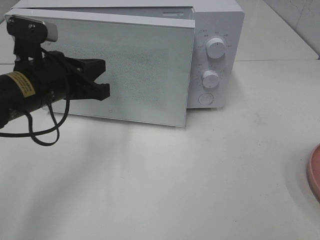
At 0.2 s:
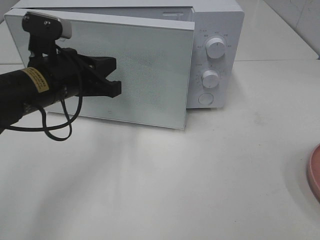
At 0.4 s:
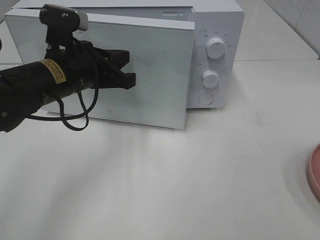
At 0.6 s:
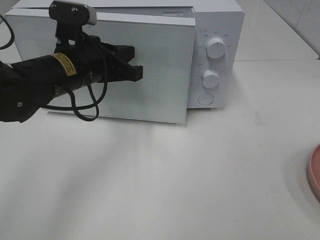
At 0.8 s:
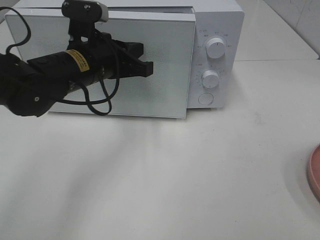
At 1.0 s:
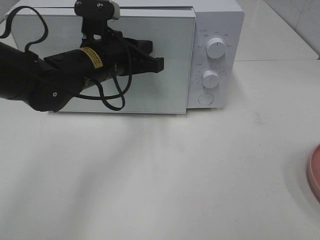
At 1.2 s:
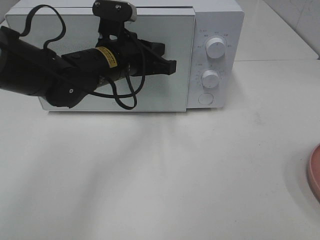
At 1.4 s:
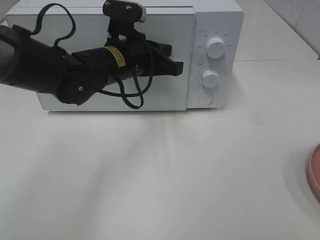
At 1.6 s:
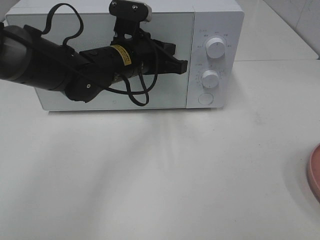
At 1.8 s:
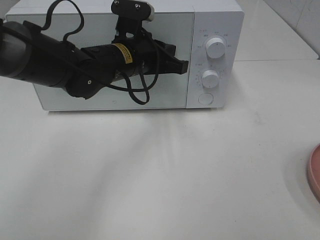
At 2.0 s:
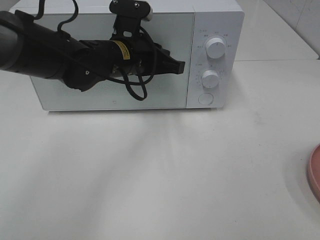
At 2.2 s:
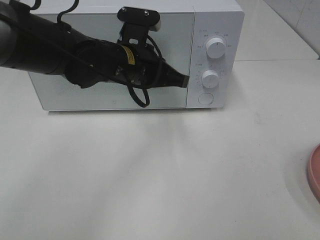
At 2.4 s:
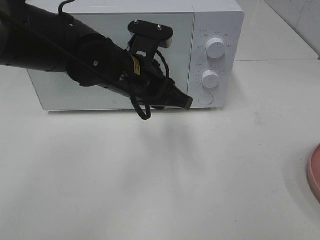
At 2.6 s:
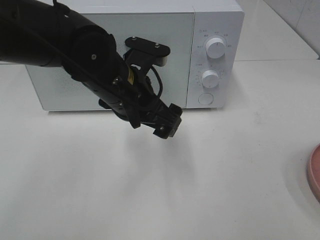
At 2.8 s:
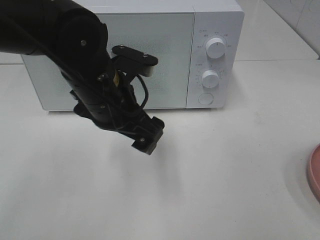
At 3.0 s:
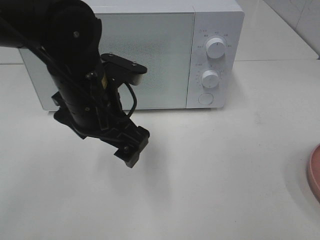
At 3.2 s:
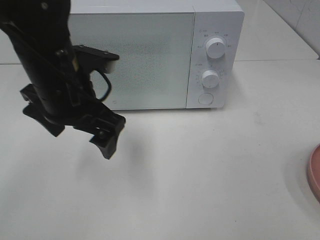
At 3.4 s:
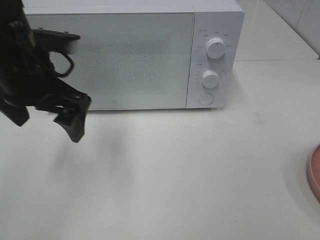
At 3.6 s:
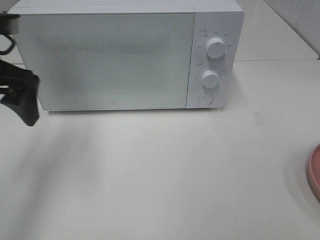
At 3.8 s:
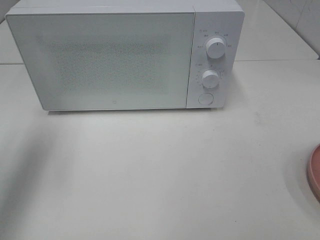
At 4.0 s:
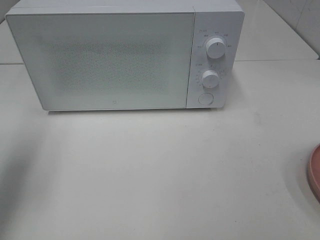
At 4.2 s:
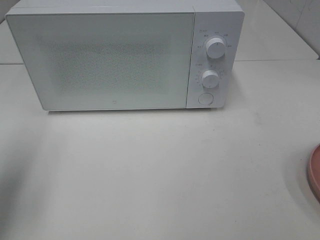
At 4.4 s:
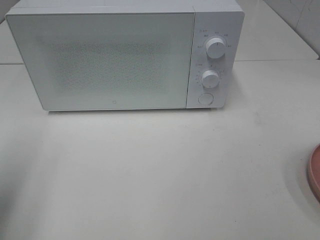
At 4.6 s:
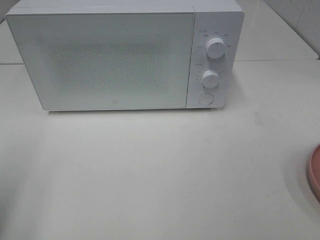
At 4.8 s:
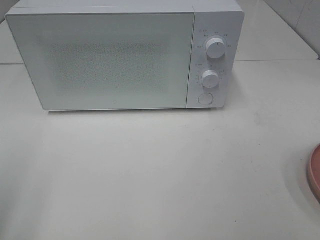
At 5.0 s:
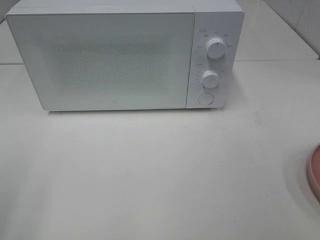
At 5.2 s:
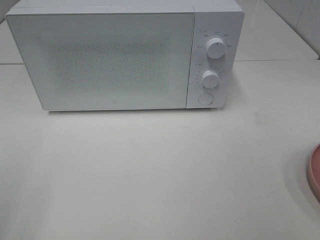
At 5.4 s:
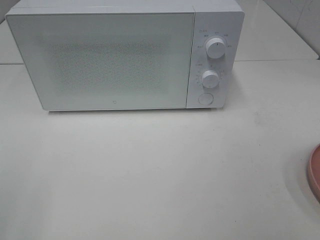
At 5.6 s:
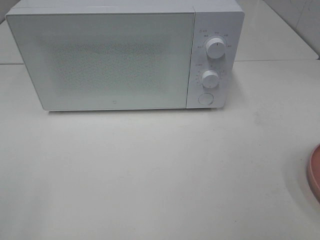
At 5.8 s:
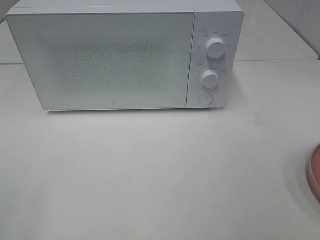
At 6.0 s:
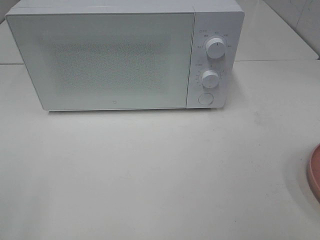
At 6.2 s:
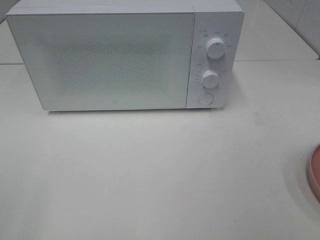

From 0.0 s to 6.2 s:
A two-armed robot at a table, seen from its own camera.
Task of the whole recording: Heat the burger.
Step, from 0.0 s to 2.0 s: Left hand: close the microwave door.
From 0.0 s to 1.6 s: The left gripper moves to the right and forward, about 15 cm.
From 1.6 s to 3.2 s: The left gripper is displaced backward and to the left by approximately 10 cm, and opens up.
From 3.2 s to 4.6 s: The left gripper travels to the left and backward by approximately 25 cm.
